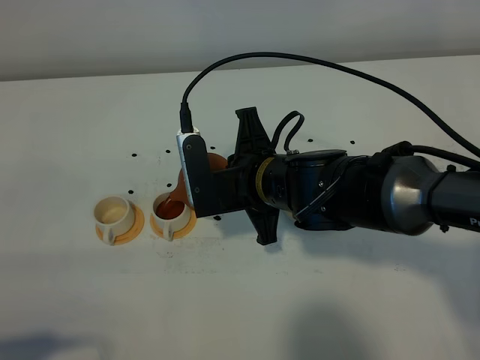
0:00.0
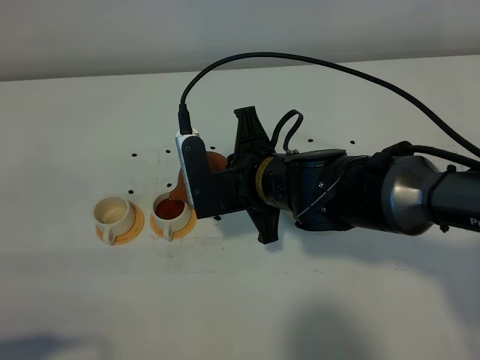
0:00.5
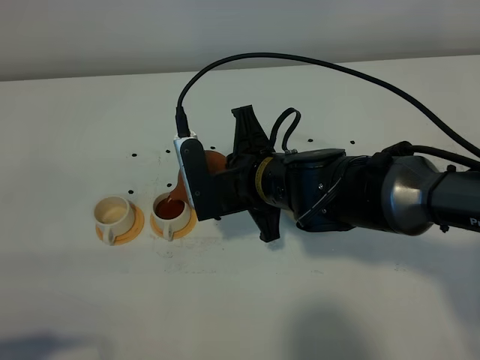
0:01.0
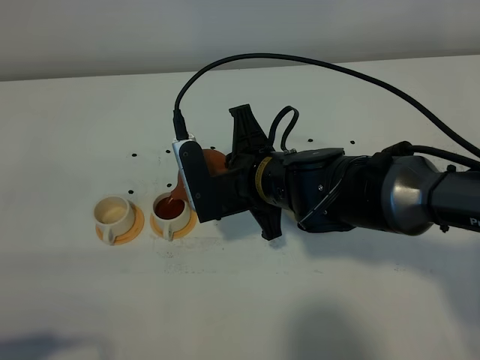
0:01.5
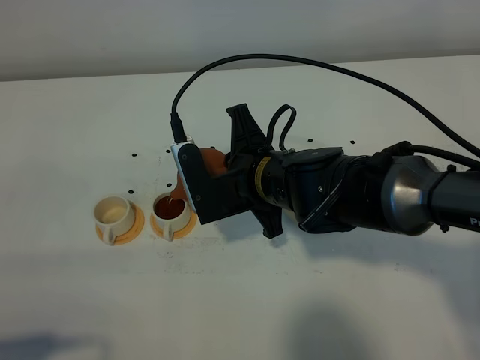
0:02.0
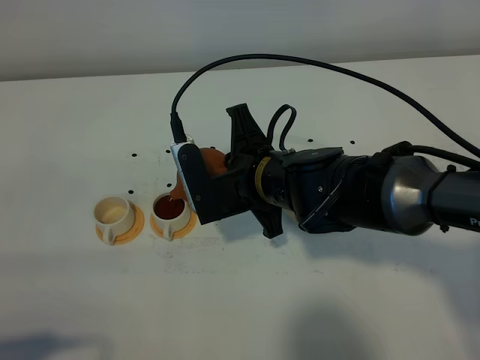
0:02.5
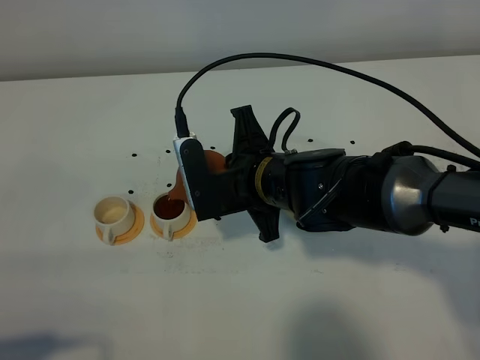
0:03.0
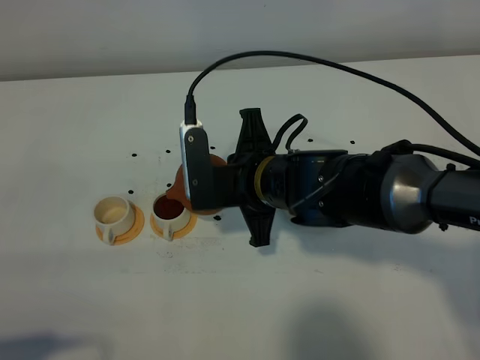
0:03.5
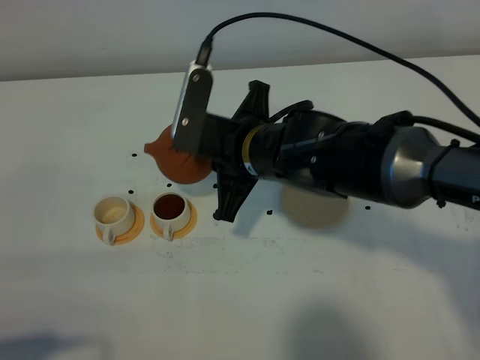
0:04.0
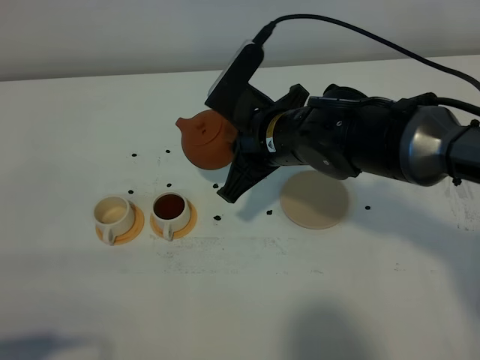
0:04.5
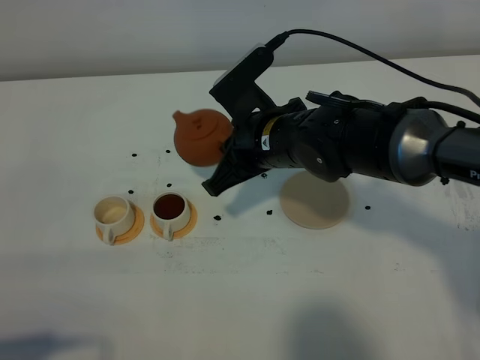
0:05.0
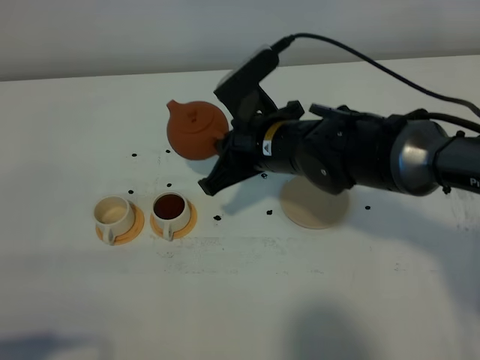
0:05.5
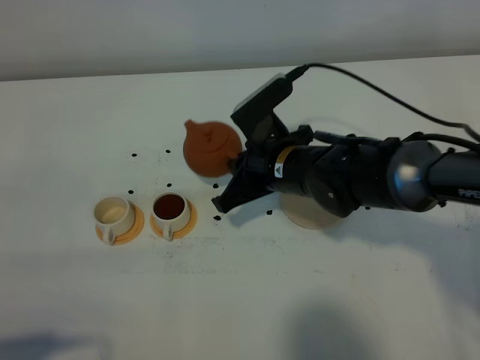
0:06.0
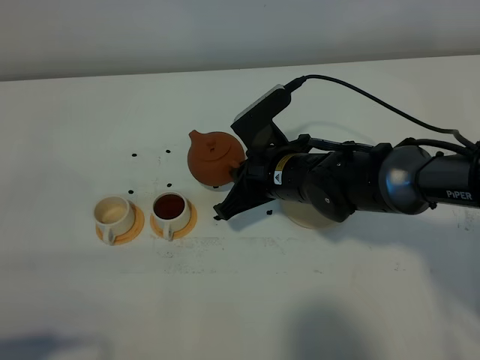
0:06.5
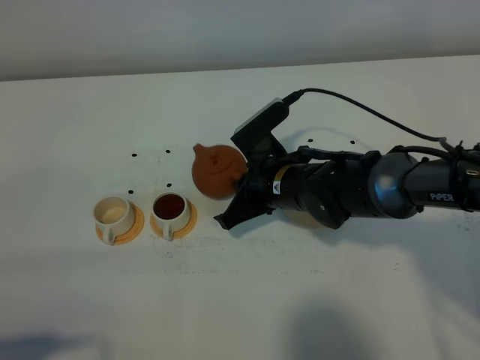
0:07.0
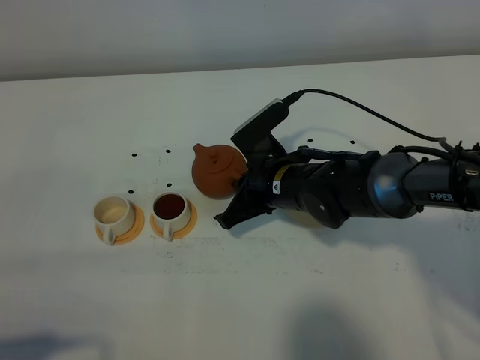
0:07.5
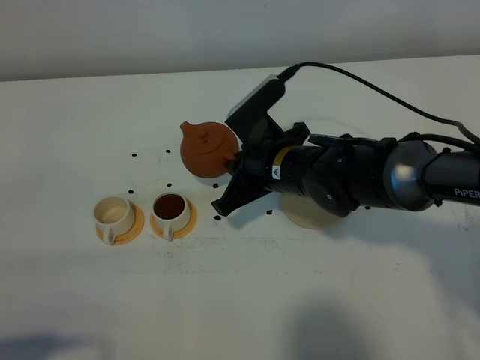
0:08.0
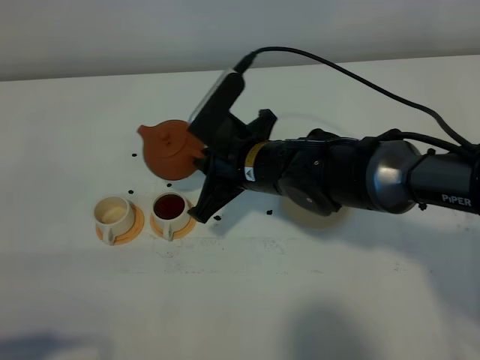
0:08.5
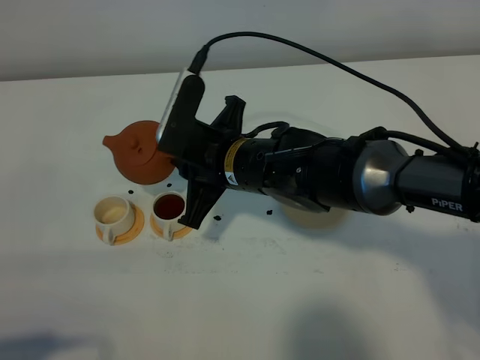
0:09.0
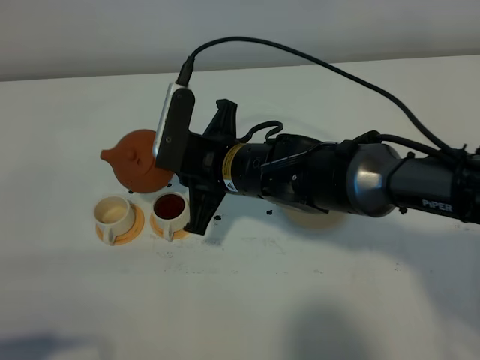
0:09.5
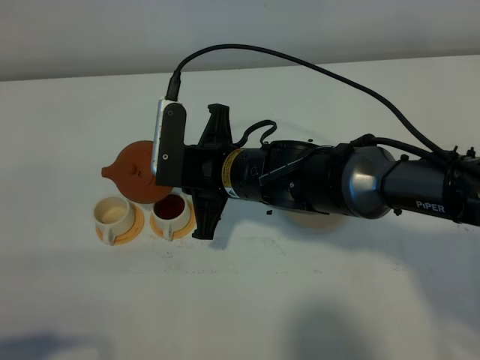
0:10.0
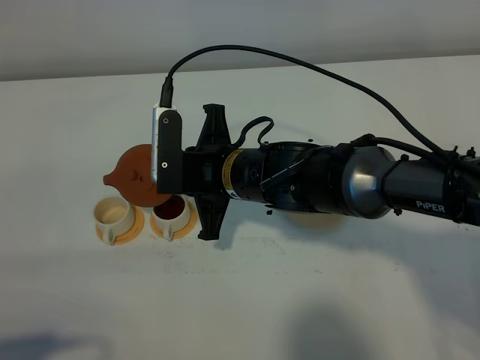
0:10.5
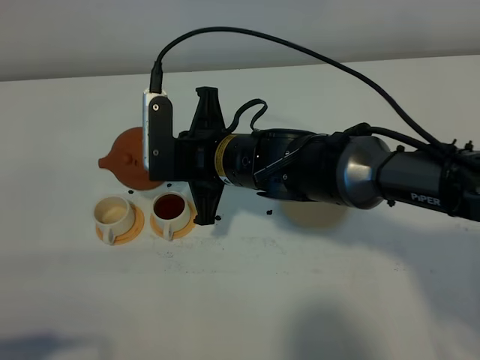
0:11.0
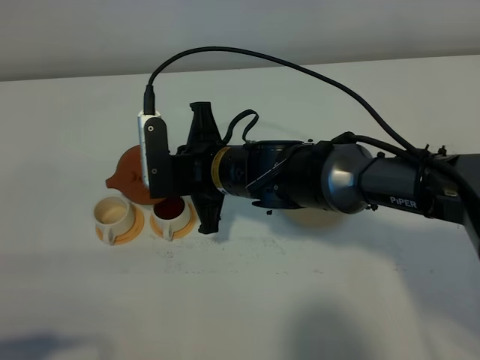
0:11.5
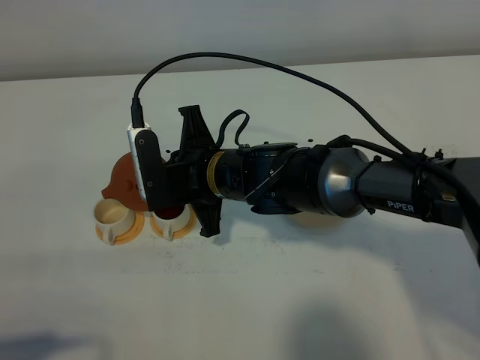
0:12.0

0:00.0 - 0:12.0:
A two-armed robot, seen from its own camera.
Task of the whole recording: grasp the brown teapot and pour the tea into the two white teacups one by one, put the brown teapot back in its original place.
0:00.0 - 0:02.0: The grippers make only small movements.
0:04.0 - 0:06.0: The right gripper moves downward, about 5 cm.
0:06.0 - 0:08.0: There are only small adjustments of the grippers.
0:08.0 - 0:10.0: The right gripper goes some 5 cm to the left.
0:10.0 - 0:12.0: There are only small adjustments of the grippers.

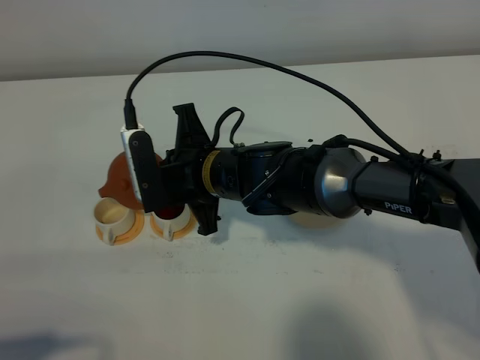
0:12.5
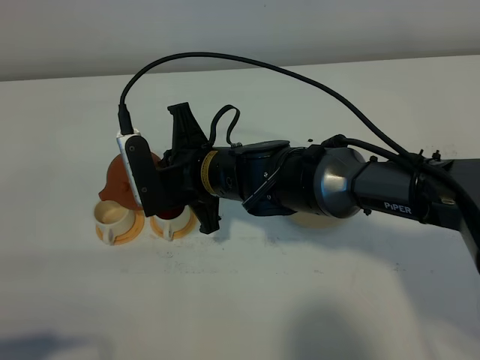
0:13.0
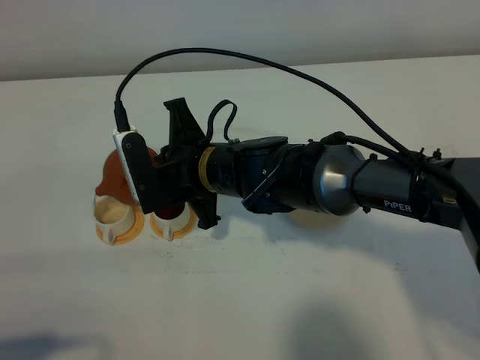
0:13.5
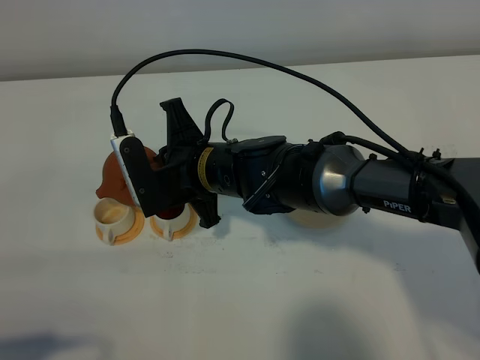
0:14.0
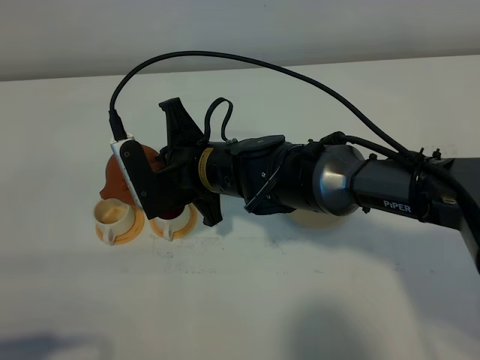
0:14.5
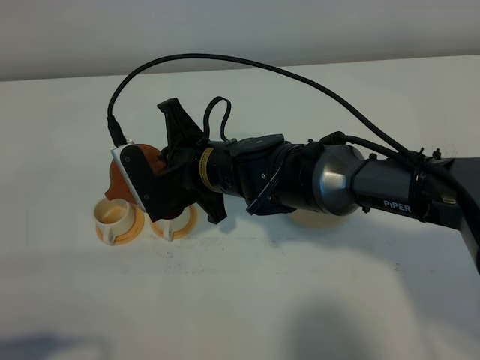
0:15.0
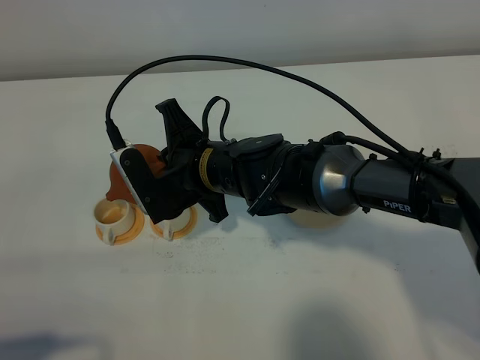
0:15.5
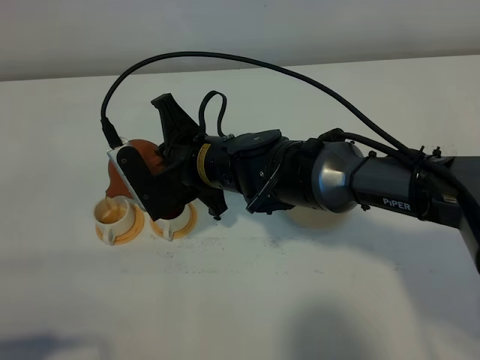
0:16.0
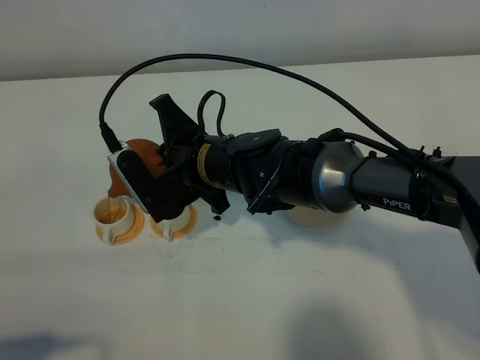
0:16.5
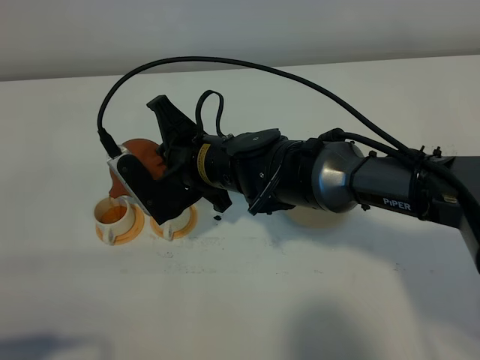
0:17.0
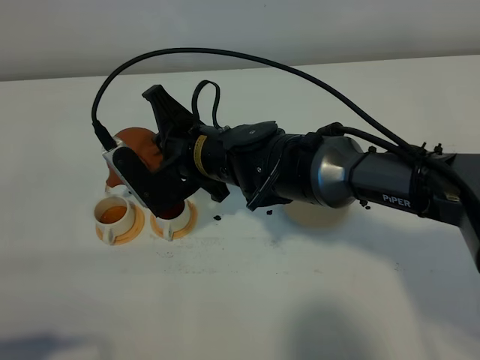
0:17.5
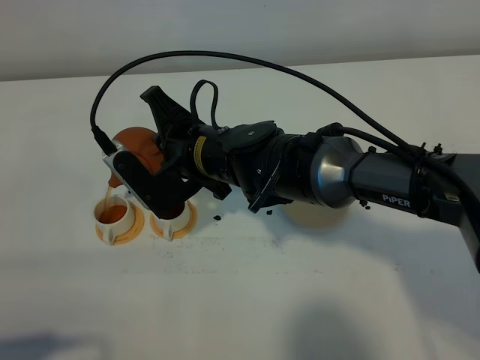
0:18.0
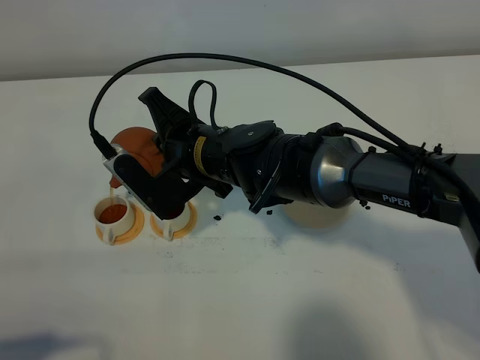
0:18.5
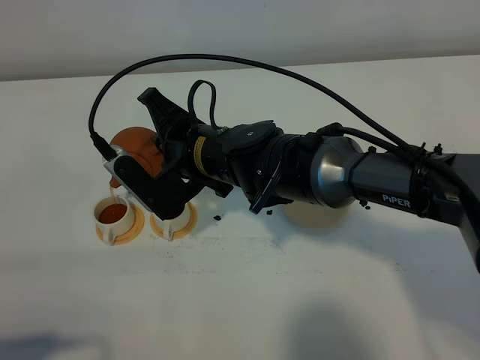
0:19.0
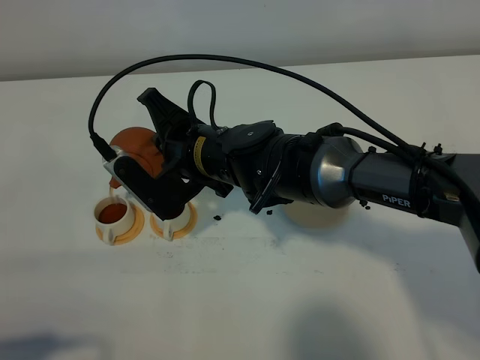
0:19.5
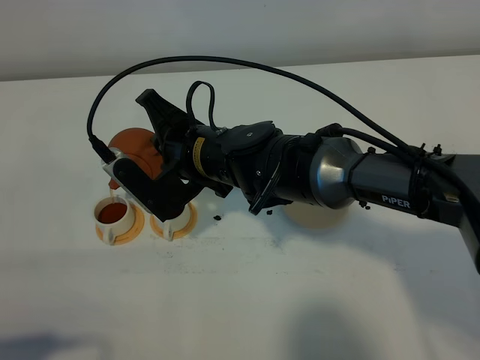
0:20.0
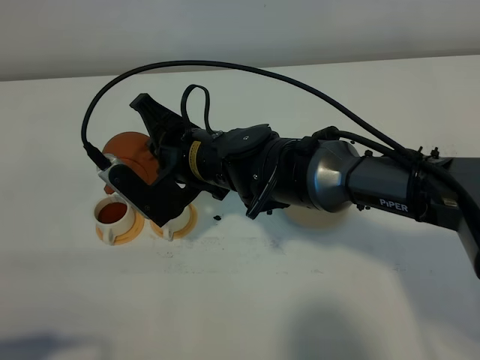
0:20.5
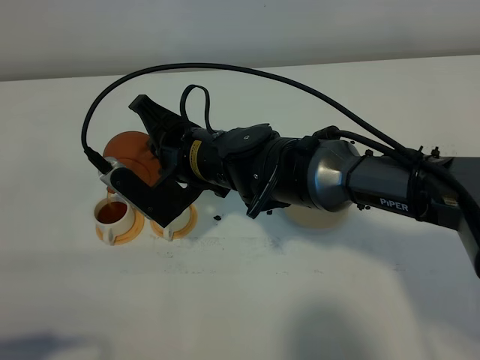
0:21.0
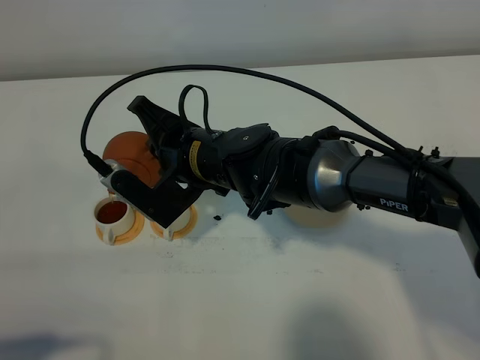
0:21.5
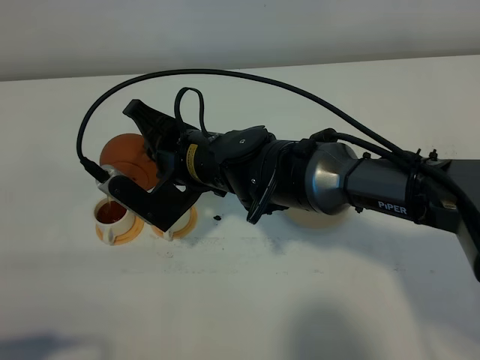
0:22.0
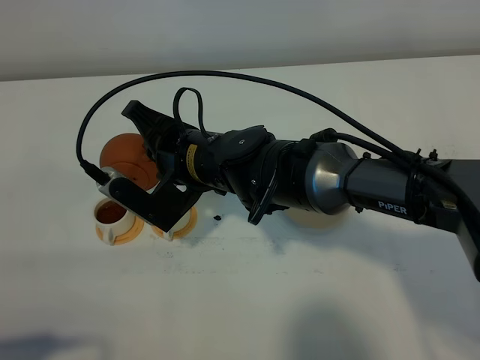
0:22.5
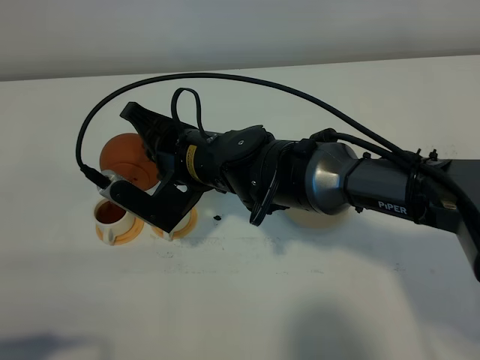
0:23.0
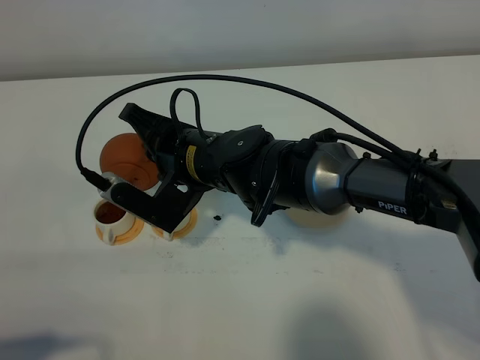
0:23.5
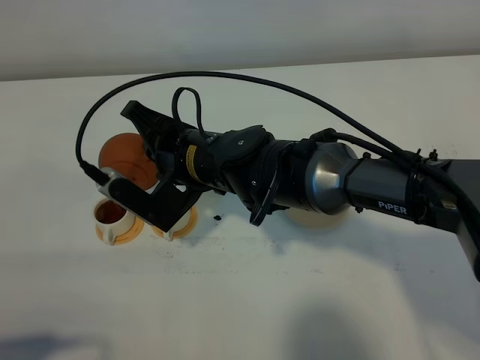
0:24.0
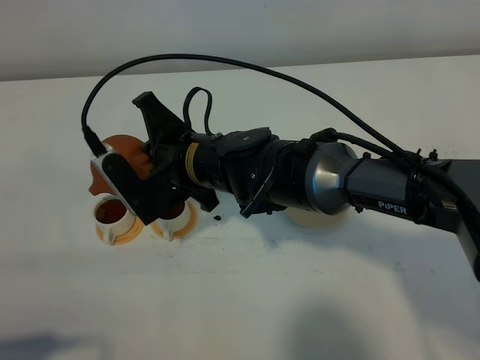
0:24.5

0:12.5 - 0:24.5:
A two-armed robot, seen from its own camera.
Task of the whole recording: grasp the brown teapot and pour the tea into the two white teacups one by one, put the brown teapot back in its original place.
0:12.5 - 0:14.5: The grippers move only a little.
0:14.5 - 0:16.5: The grippers make only small movements.
0:16.5 - 0:18.5: The grippers stay close to where they were, moving slightly.
0:18.5 - 0:20.5: Neither gripper changes place.
0:20.5 - 0:22.5: There are only small adjustments of the grippers.

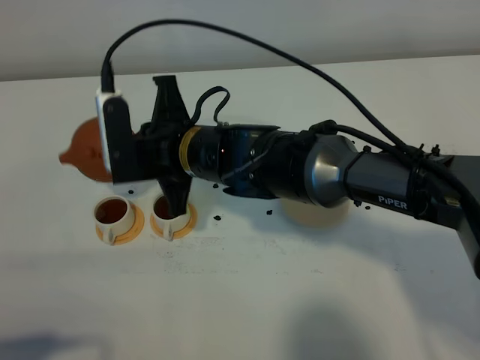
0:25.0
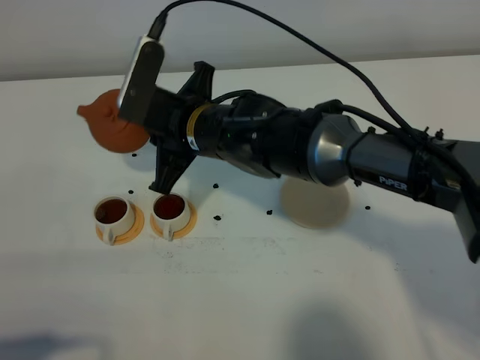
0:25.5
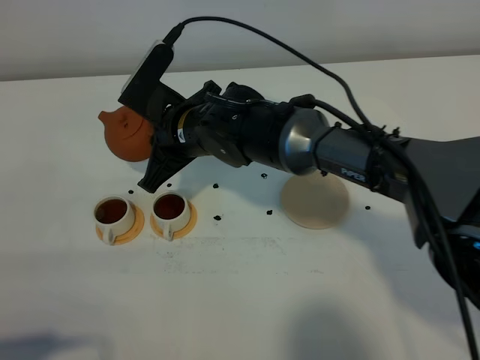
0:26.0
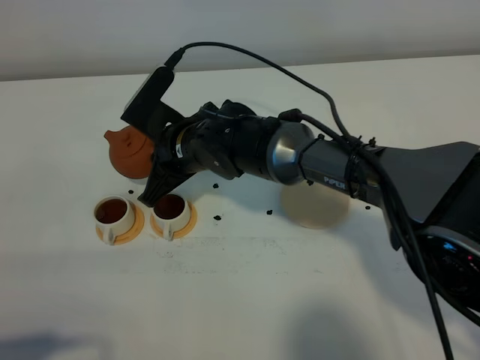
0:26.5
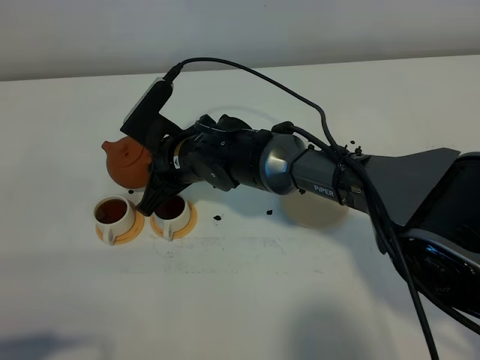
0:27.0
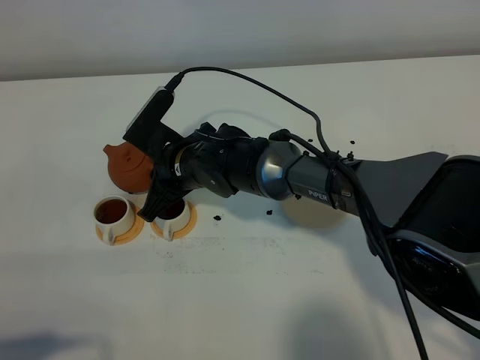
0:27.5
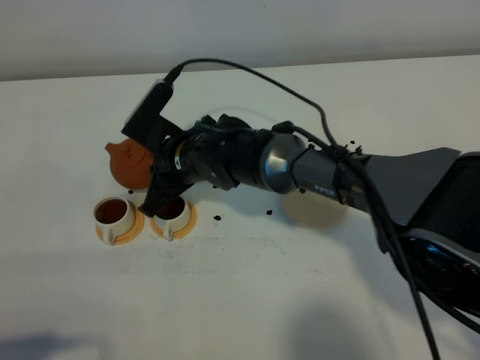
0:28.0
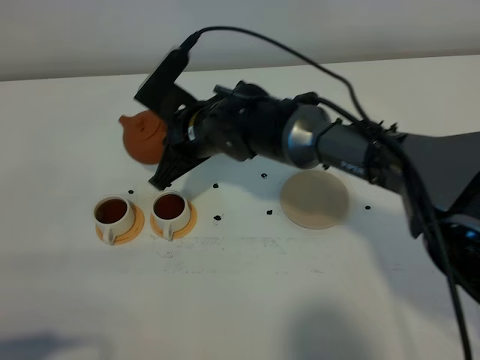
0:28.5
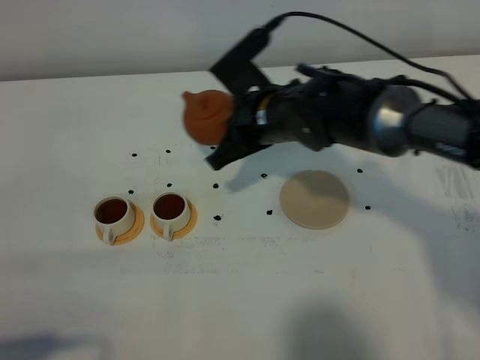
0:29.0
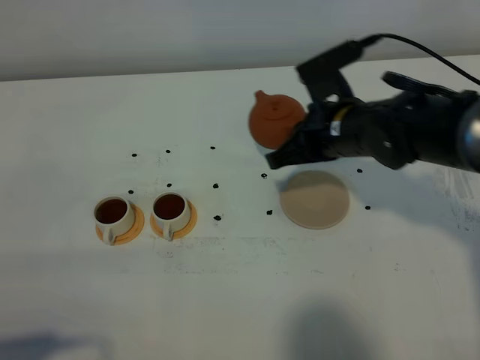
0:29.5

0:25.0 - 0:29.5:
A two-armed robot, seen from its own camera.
Task of the whole recording: grasp the brown teapot and pour the tea into the two white teacups one by one, put the brown teapot back in its original place.
0:25.0 - 0:27.0: The right gripper shifts roughly 5 cm downward.
0:27.0 - 0:29.5: The right gripper moves to the right, approximately 20 cm.
